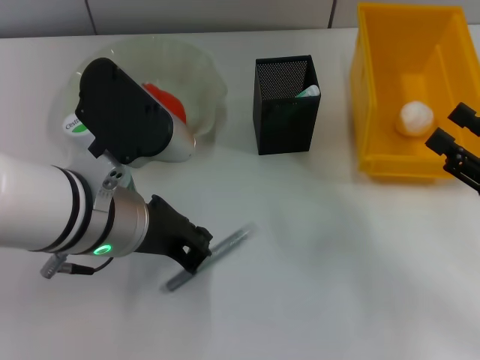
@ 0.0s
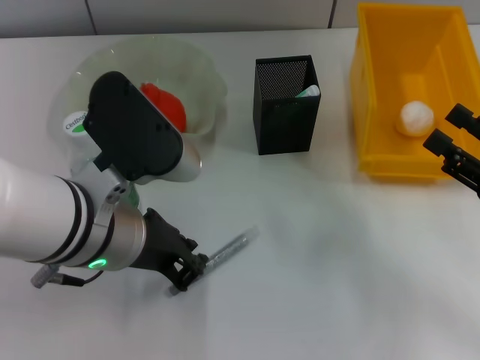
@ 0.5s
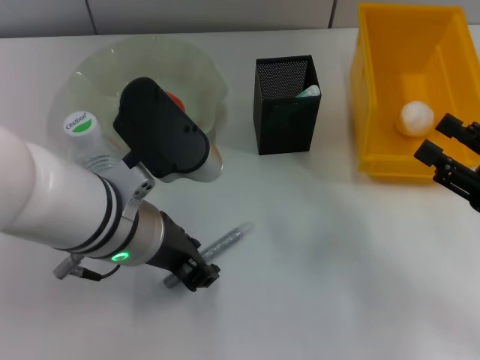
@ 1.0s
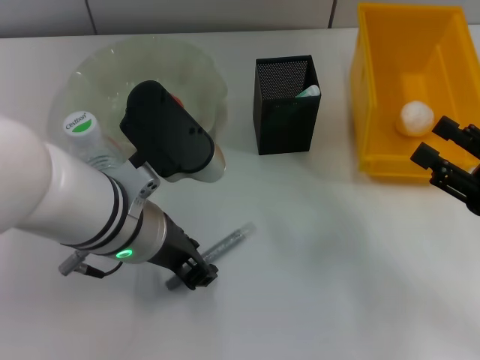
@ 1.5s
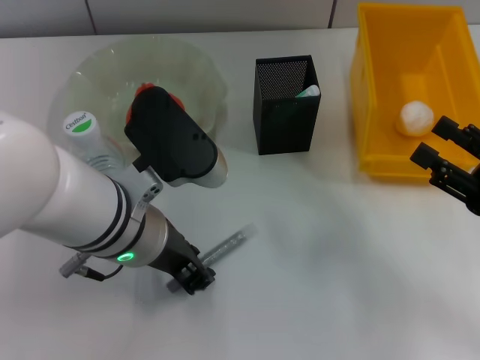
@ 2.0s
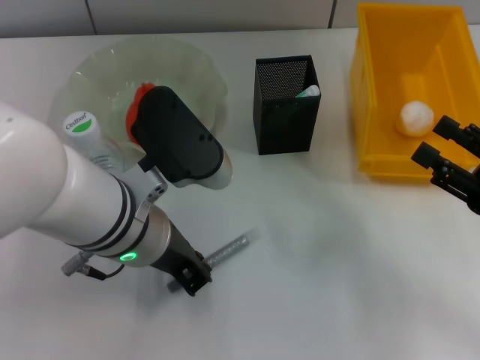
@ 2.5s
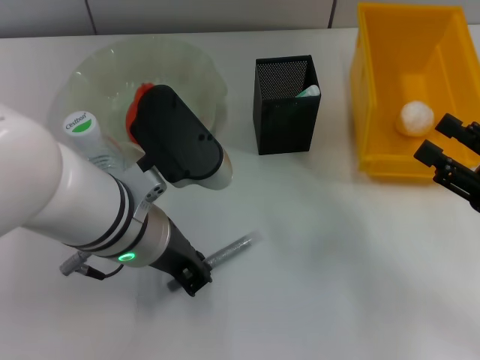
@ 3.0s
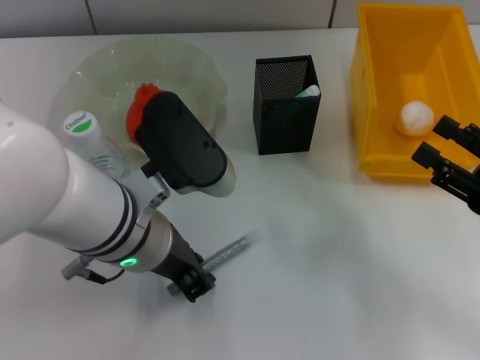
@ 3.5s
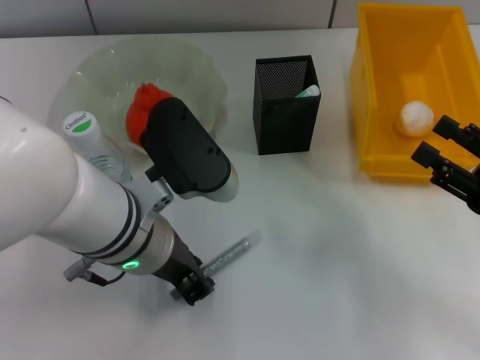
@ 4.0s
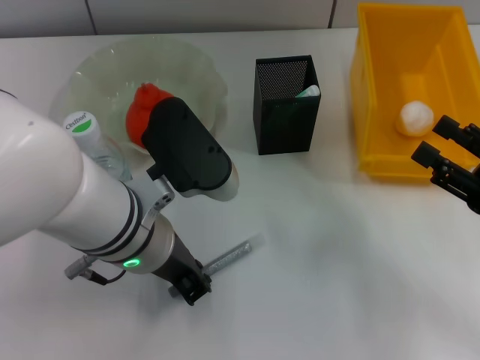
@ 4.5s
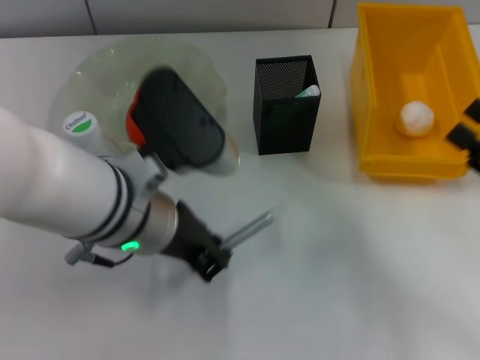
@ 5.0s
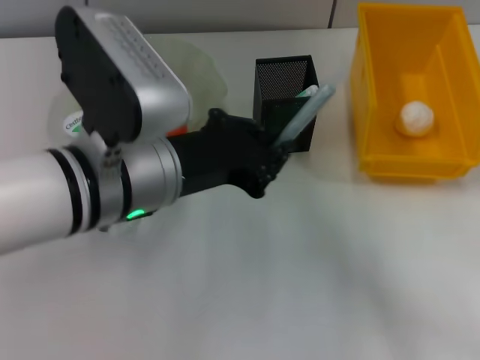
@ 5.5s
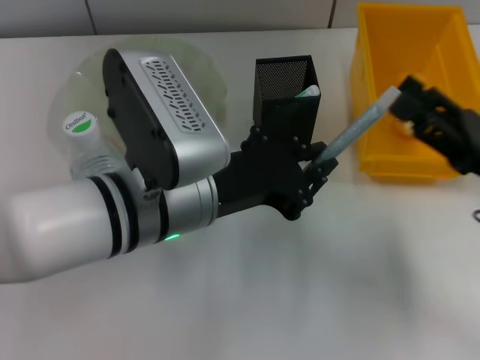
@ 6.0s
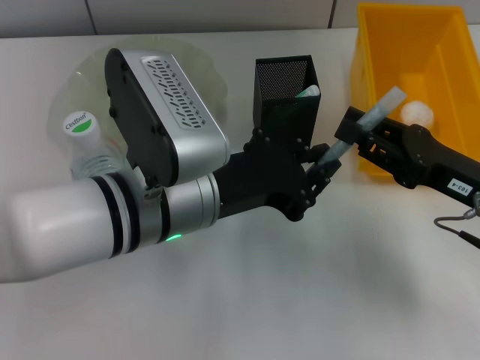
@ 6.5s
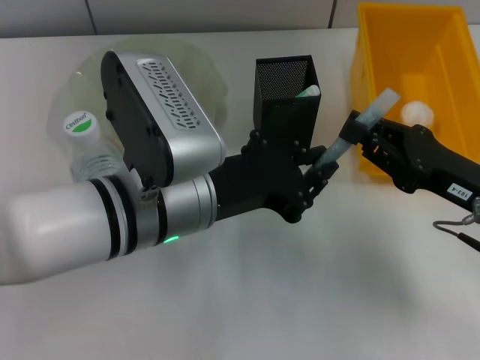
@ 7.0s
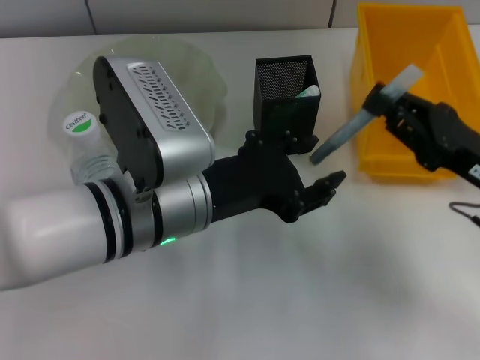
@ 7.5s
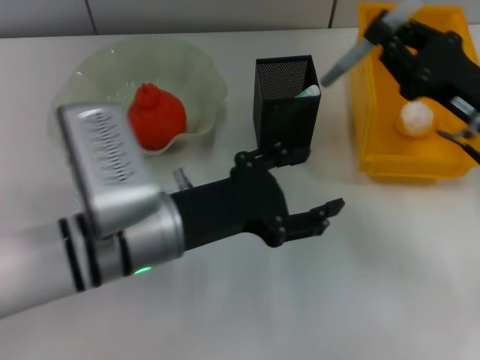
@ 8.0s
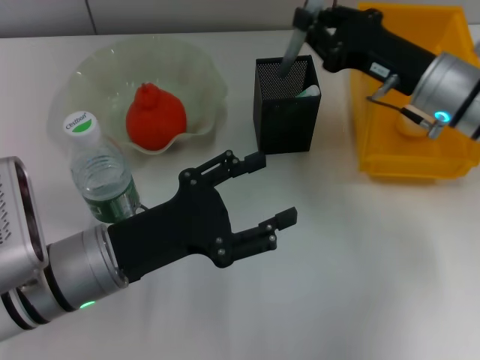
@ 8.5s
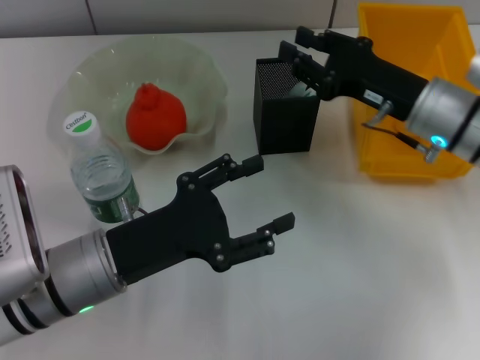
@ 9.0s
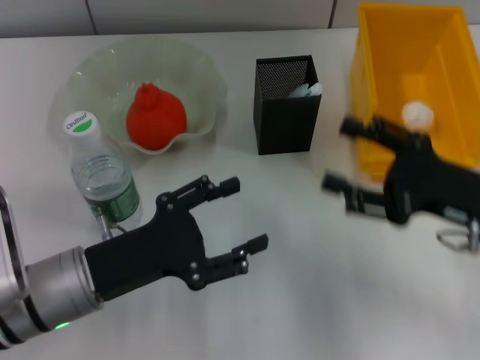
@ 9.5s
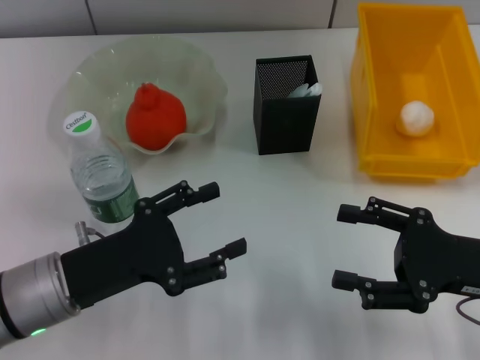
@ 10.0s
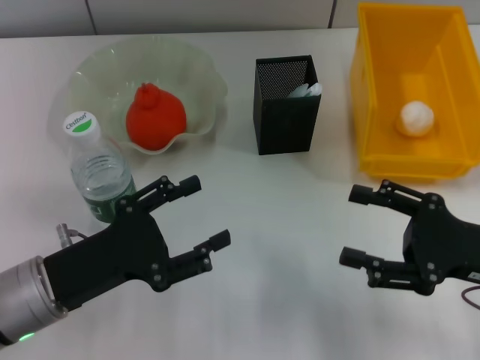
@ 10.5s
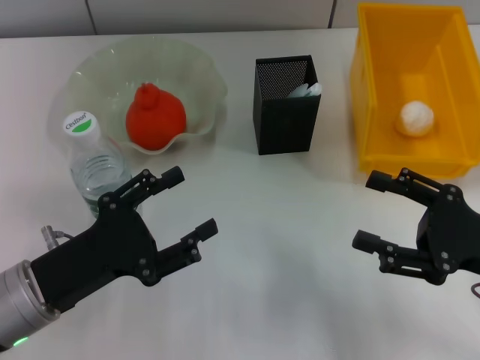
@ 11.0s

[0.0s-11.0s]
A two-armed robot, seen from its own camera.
Step, 0.0s to 2.5s: Grab the gray glue with the left hand.
Step, 3.5s to 7.0s: Pass the gray glue from the left hand to the right hand.
Step, 7.5s to 8.5s: Place the gray glue into the pen holder with the right hand.
0.0s to 2.0s: The left gripper opens up.
2.0s to 3.5s: Neither gripper changes place.
5.5s to 7.5s: The right gripper moves to the left, some 5 cm, and closes up.
7.5s to 9.0s: The left gripper goes about 10 cm to the left and downward, and opens up; the right gripper travels forward and to the left by roughly 10 cm.
9.0s to 11.0s: The left gripper goes approximately 5 cm to the left, while the right gripper shifts about 15 cm backward and to the right, and opens its fingers.
